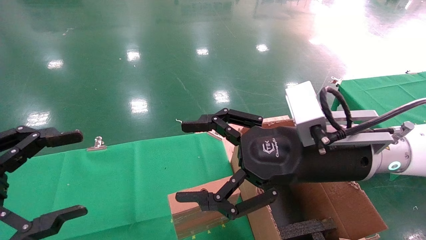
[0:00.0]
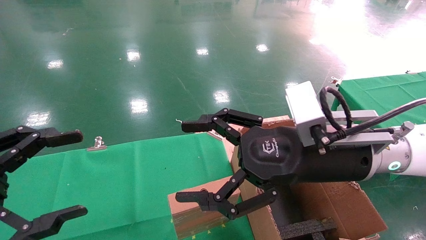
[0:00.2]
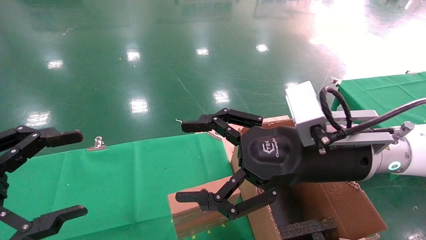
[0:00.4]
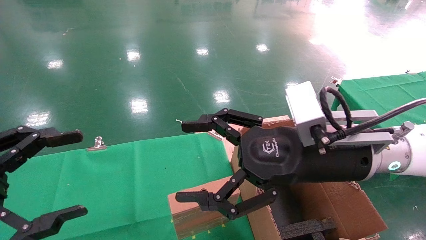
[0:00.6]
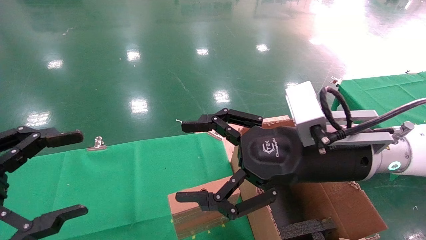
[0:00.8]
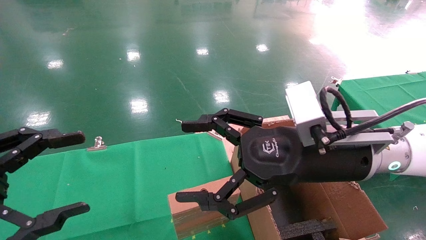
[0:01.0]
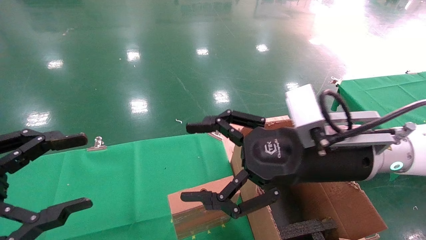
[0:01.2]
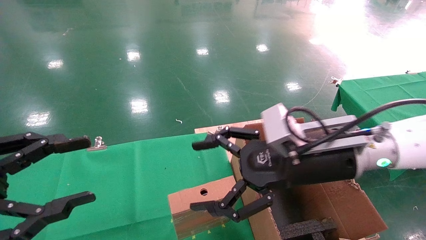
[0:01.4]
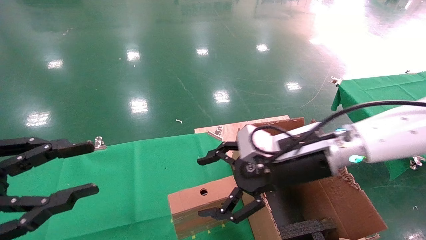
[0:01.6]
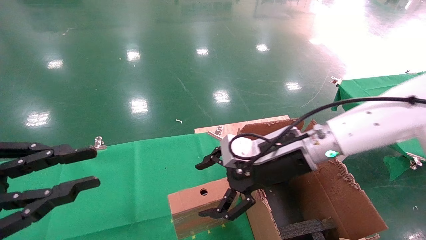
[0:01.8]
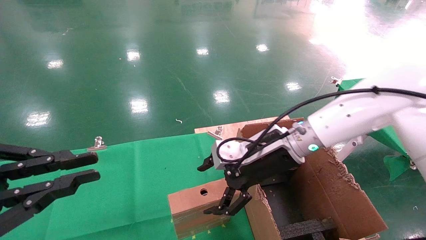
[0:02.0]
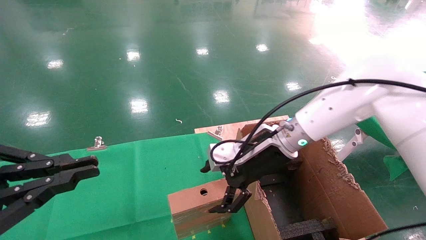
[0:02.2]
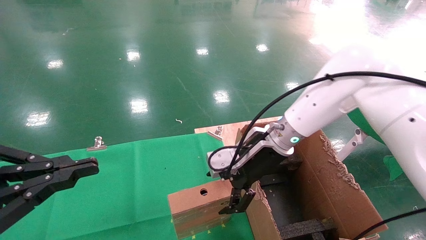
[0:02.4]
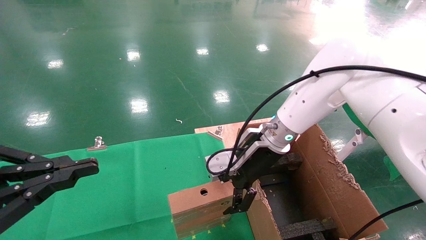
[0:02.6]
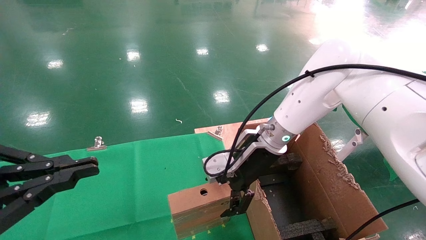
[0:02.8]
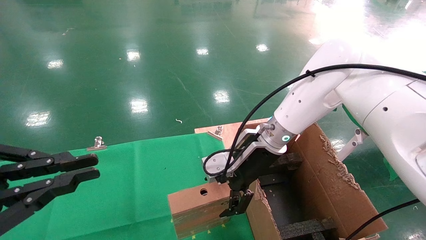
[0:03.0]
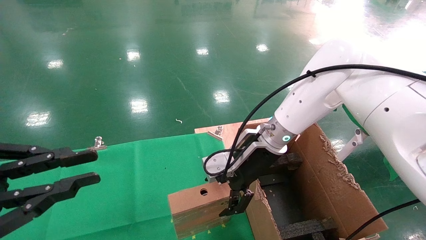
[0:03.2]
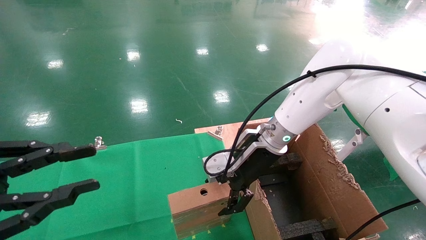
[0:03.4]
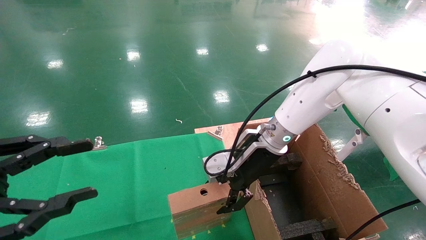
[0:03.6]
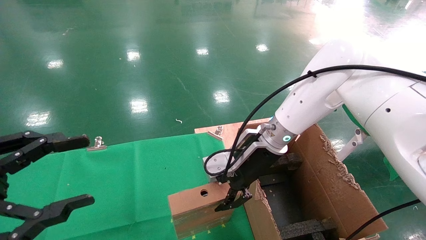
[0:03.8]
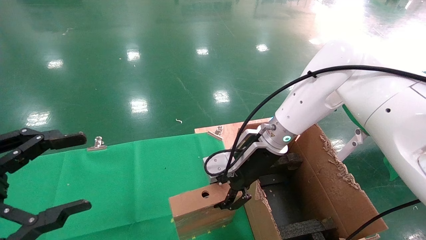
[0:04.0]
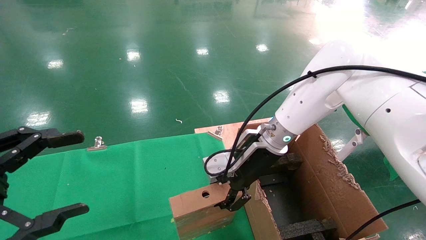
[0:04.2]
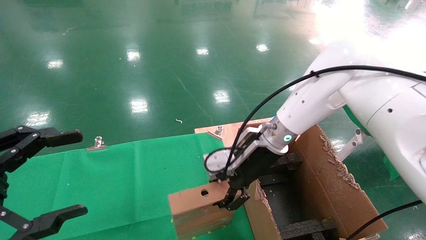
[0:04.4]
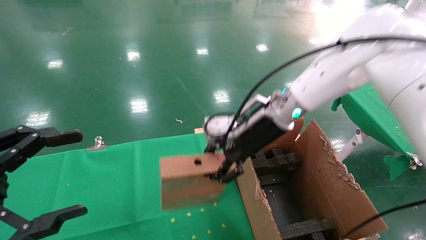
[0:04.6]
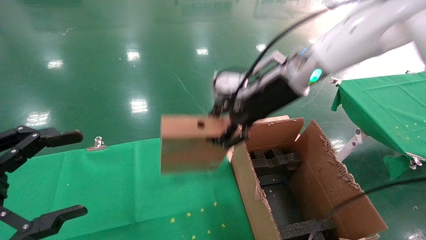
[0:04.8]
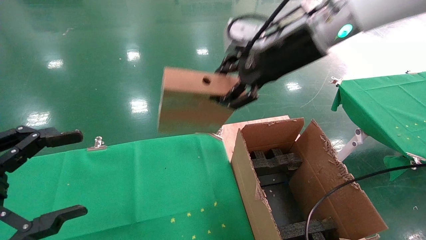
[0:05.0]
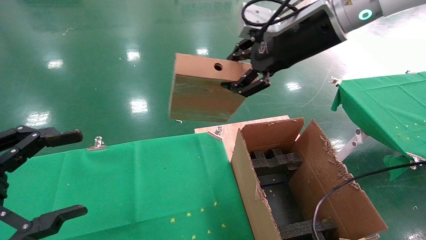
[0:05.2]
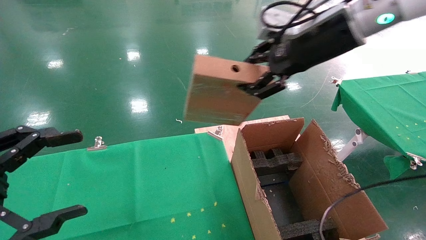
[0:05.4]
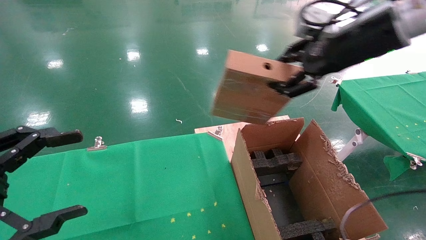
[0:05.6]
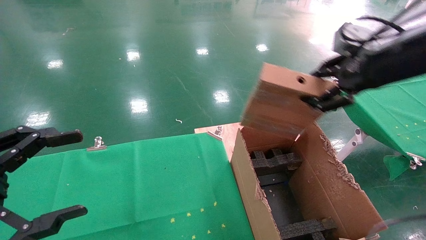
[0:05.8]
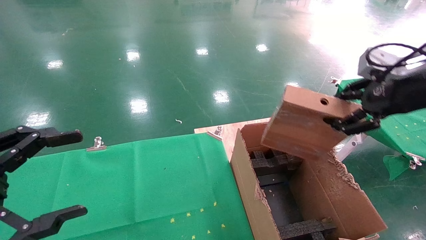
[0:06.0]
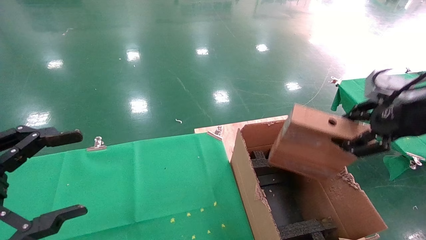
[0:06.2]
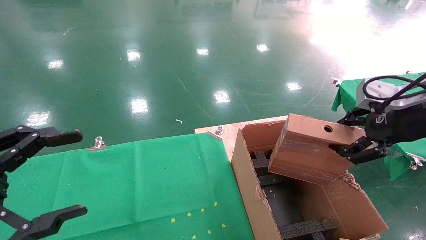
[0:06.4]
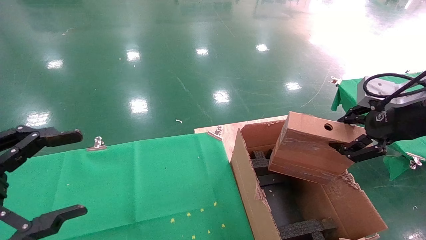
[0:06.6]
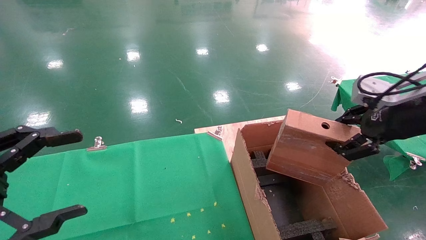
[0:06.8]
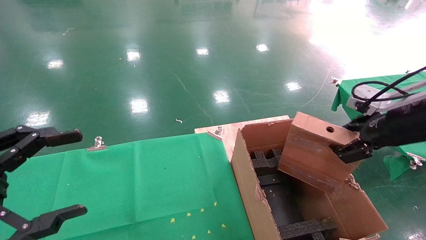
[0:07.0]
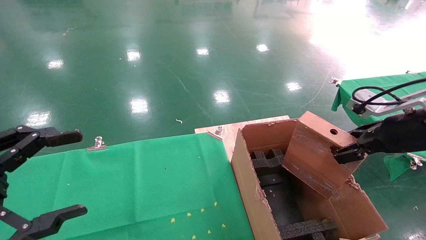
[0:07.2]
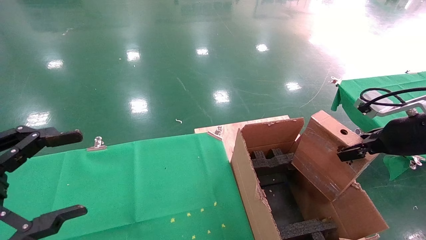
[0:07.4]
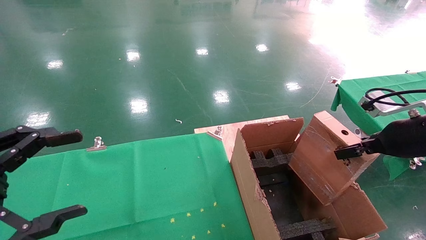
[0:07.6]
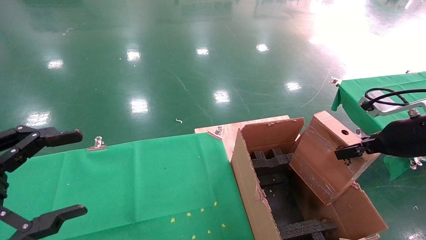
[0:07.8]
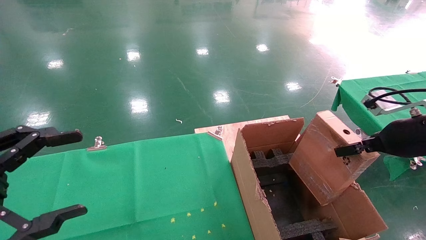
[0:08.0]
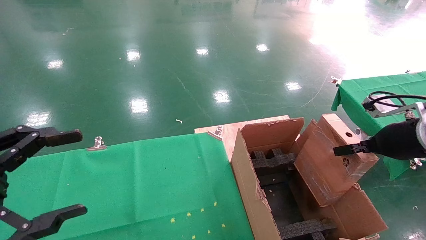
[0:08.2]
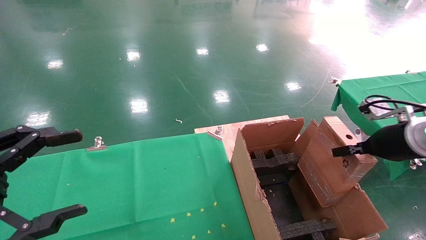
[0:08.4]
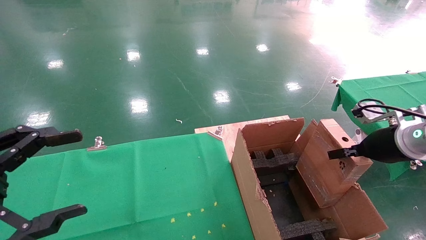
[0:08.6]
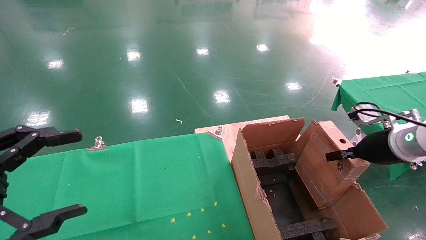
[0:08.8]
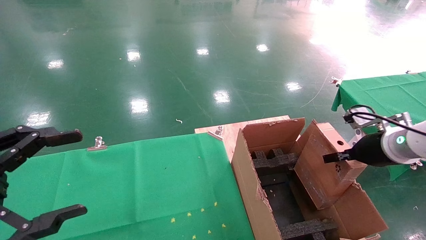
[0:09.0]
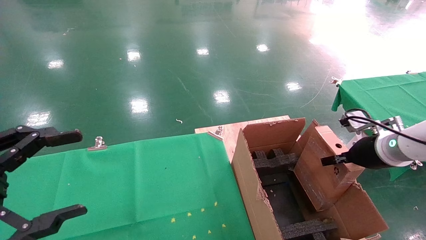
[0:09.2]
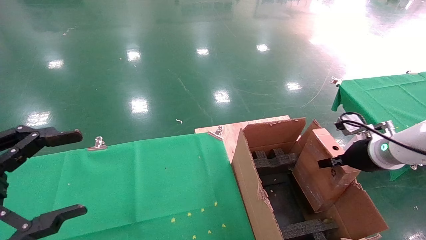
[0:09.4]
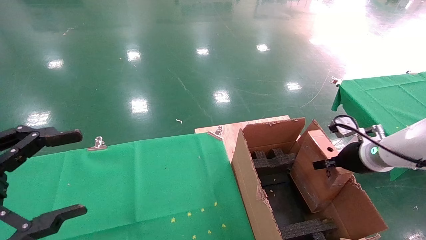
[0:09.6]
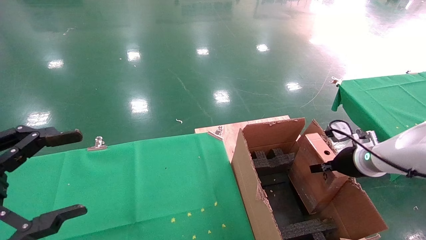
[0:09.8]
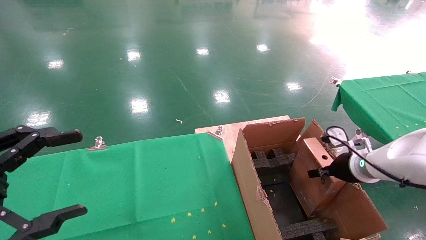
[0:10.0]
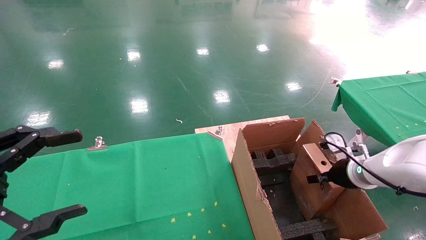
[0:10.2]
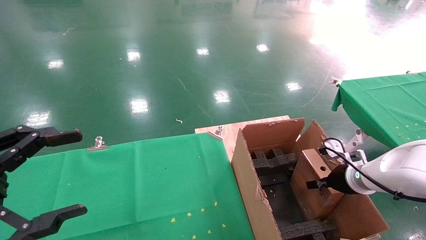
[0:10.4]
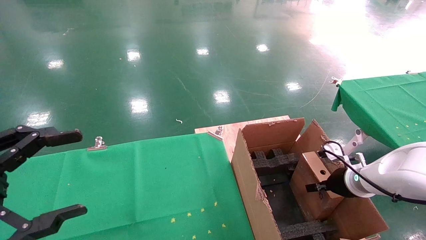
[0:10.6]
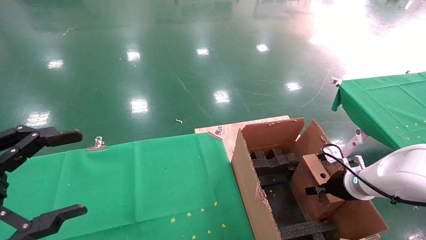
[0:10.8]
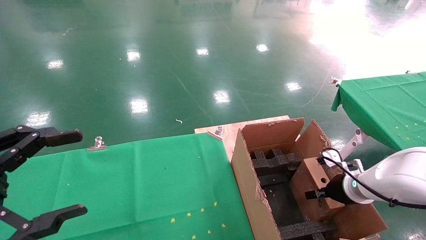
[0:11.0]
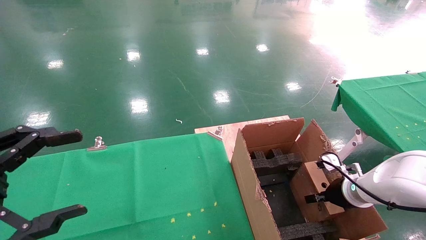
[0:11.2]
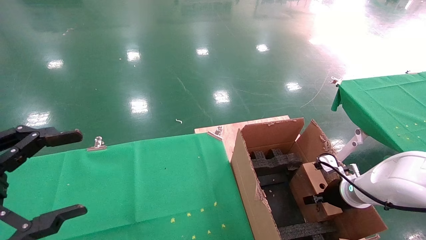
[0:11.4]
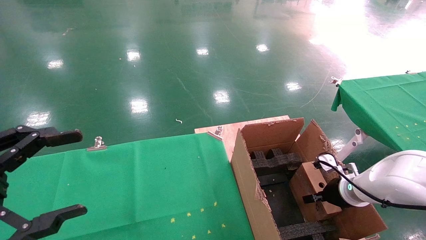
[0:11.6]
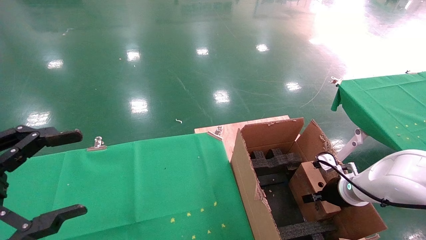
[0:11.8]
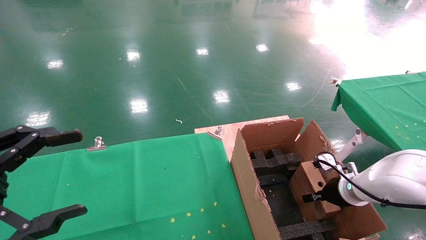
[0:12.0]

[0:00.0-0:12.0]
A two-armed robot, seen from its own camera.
Task of the whole recording: using a robotic arm to pick up a cardboard box and palace it the carton.
Step, 0:01.4 to 0:04.0: Pick up the mouse and the power cord paper box.
0:00.0 to 0:01.6: The left gripper closes up; the right gripper moves forward, roughly 5 cm.
0:01.6 to 0:03.0: The right gripper moves forward, approximately 10 cm. The left gripper closes its fingers.
0:03.0 to 0:04.4: The left gripper opens its fingers; the right gripper closes.
0:04.4 to 0:06.0: The right gripper goes about 30 cm to the right, backward and upward.
0:06.0 to 0:07.6: The right gripper travels downward by about 10 cm.
0:07.6 to 0:09.0: The right gripper shifts approximately 10 cm downward and forward.
0:09.0 to 0:10.4: The right gripper travels downward by approximately 10 cm.
0:10.4 to 0:12.0: The grippers stay close to where they were, moving slightly.

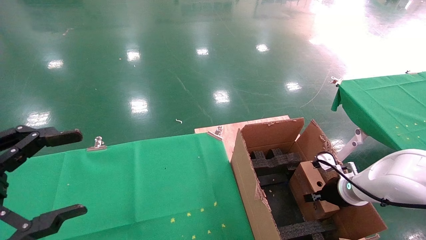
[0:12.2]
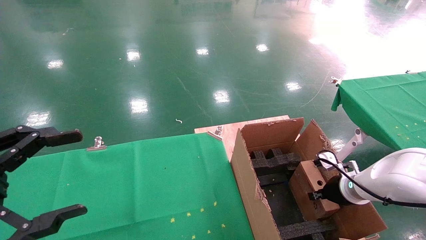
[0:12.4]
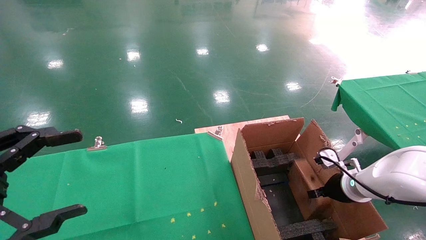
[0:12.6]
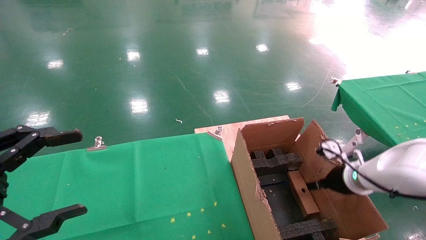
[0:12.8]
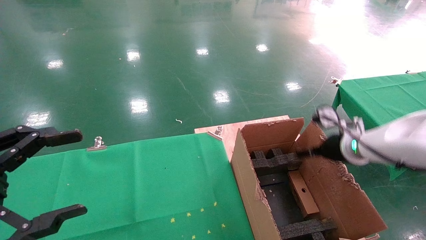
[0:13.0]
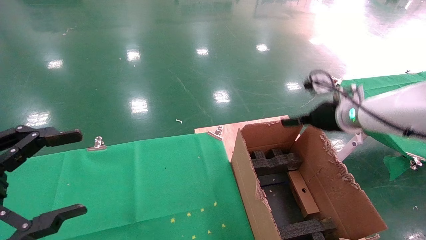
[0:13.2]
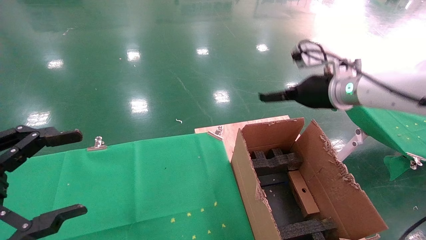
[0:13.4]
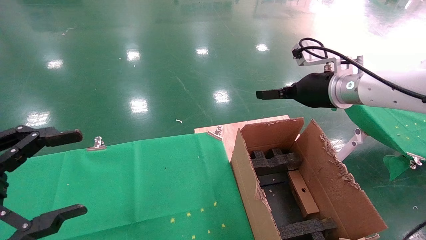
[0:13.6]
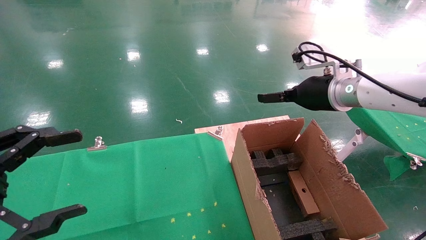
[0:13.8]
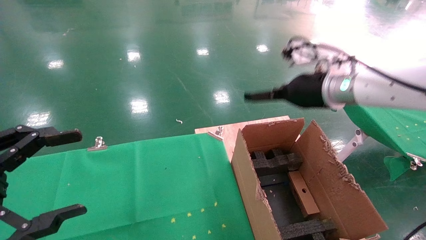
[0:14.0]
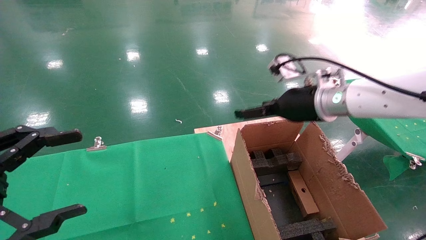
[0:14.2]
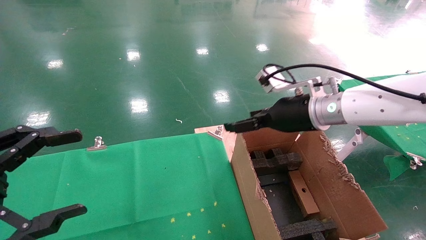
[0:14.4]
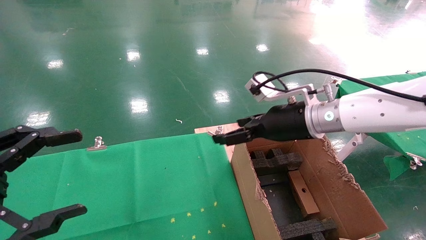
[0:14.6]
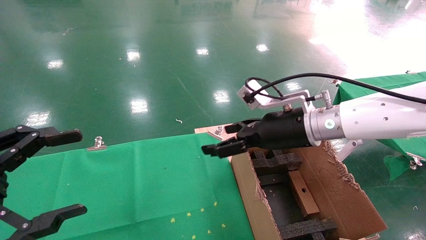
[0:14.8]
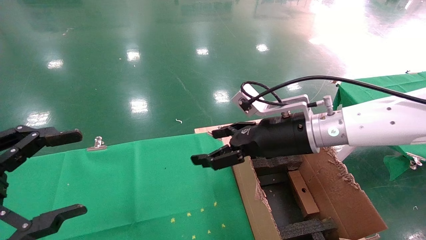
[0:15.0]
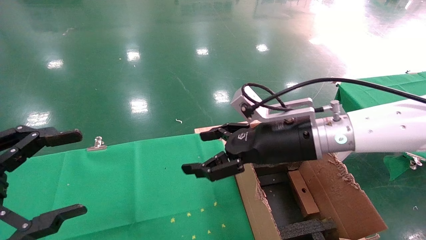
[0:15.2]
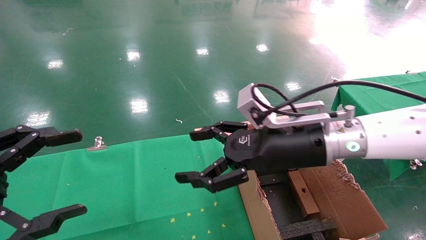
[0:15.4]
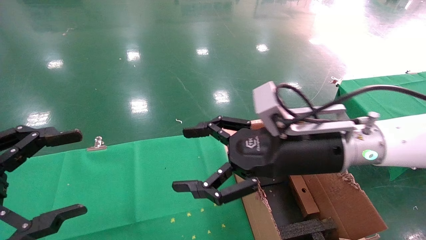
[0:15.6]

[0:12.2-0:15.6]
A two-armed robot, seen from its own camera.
Task of the whole recording: using a robotic arm to pick up a cardboard box and palace it the carton.
0:12.2 to 0:13.8: The right gripper moves upward, roughly 25 cm, and opens.
0:13.8 to 0:15.6: The right gripper shifts about 15 cm backward and to the left.

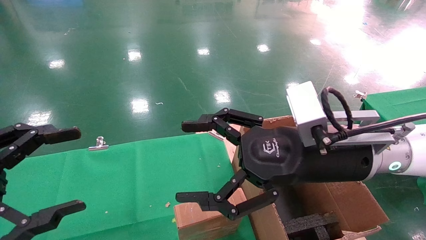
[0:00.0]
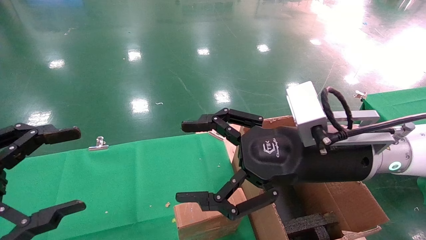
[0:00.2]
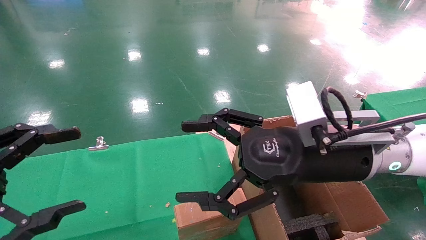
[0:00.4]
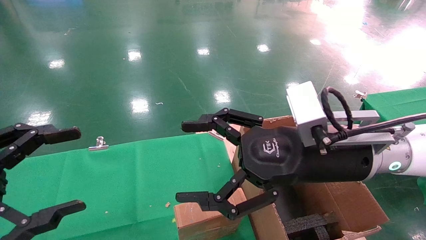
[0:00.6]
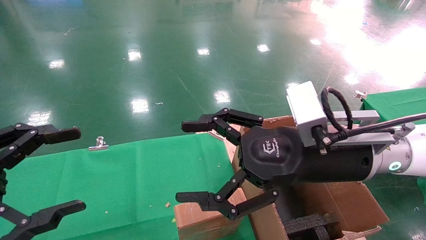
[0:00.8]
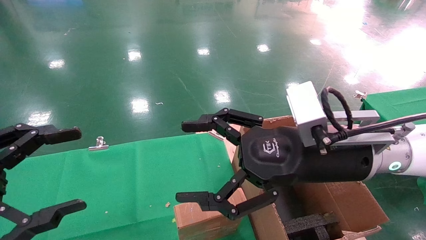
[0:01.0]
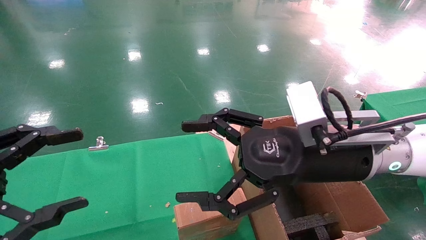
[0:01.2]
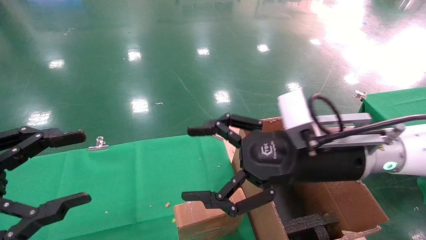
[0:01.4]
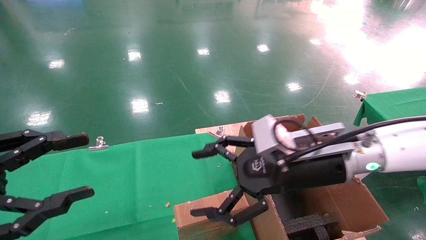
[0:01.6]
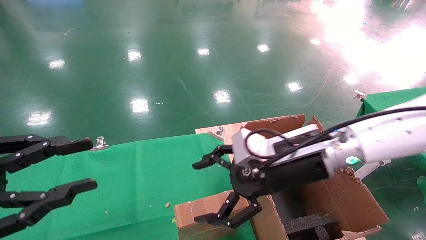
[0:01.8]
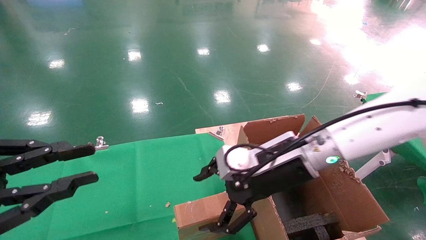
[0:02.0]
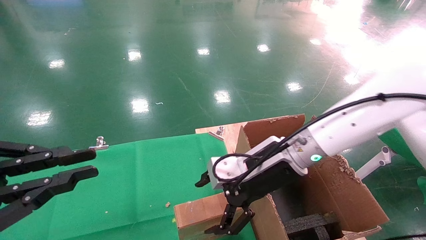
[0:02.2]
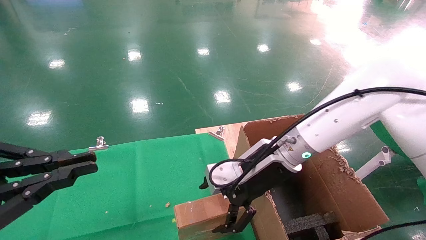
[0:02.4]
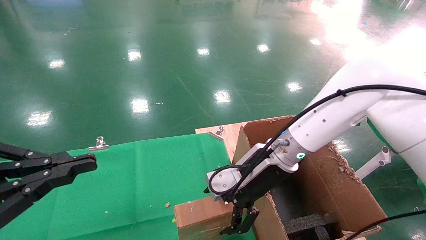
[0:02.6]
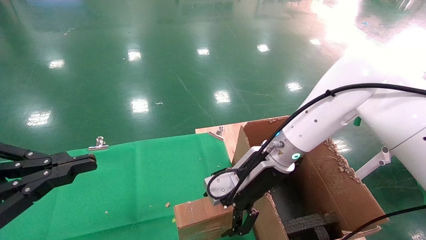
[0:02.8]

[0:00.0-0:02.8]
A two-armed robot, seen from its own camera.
Task of the whole recording: using a robotic arm to pick up a cardboard box and palace it the carton.
0:00.0 to 0:01.4: The grippers make only small movements.
0:01.4 to 0:02.8: The left gripper closes up, while the right gripper heads forward and downward, covering some 10 cm.
